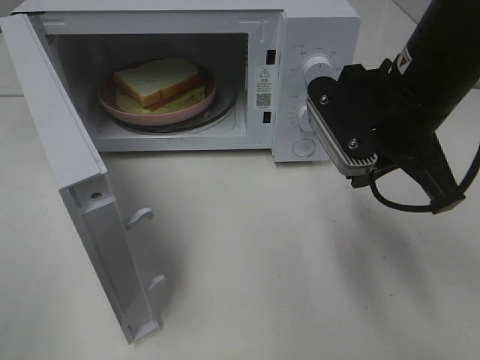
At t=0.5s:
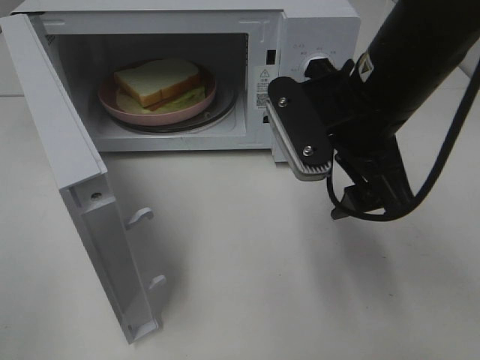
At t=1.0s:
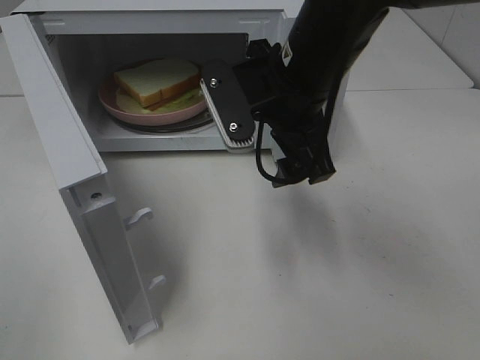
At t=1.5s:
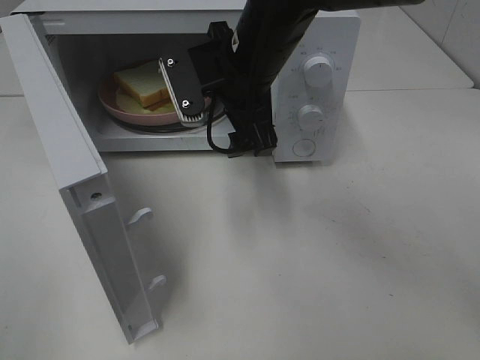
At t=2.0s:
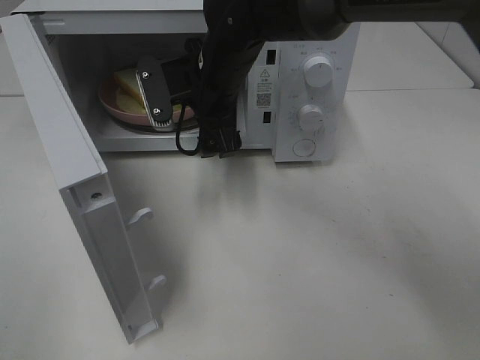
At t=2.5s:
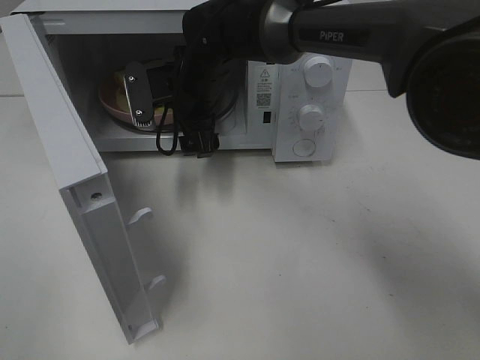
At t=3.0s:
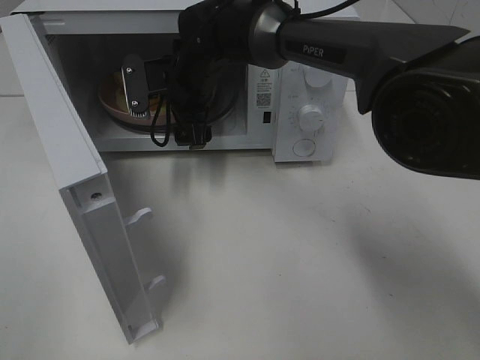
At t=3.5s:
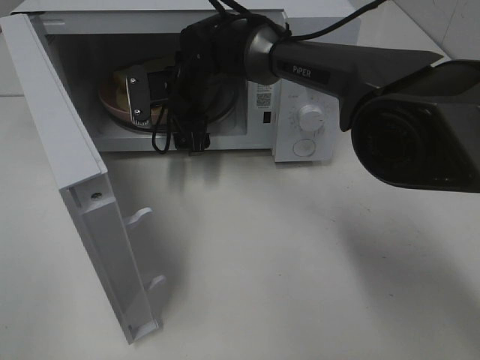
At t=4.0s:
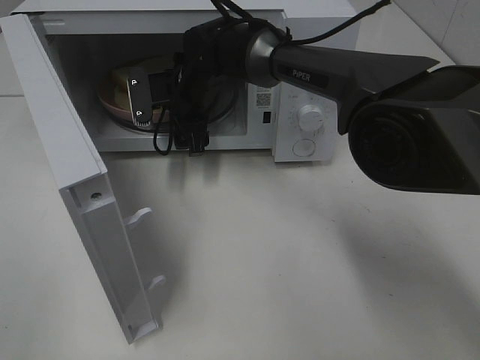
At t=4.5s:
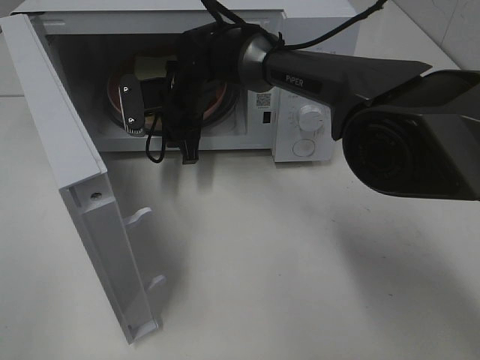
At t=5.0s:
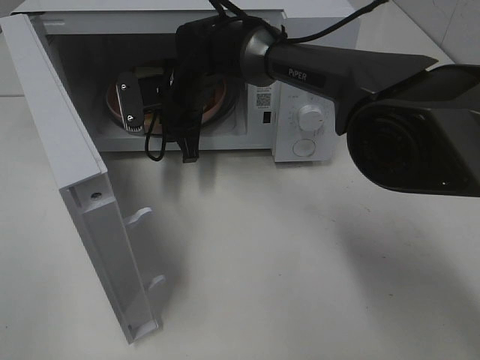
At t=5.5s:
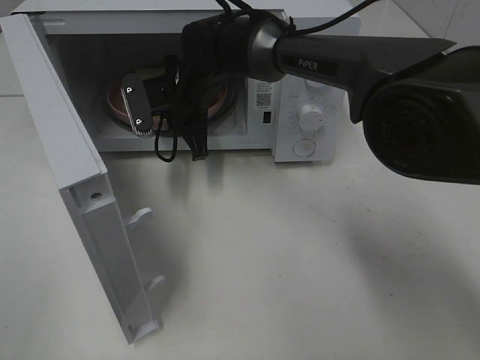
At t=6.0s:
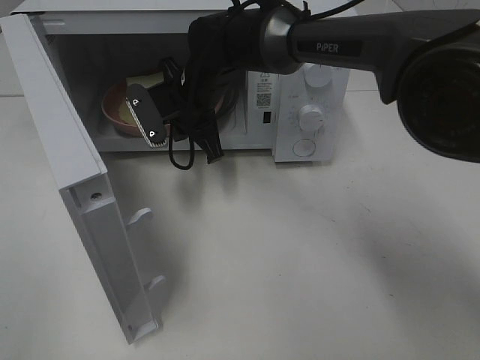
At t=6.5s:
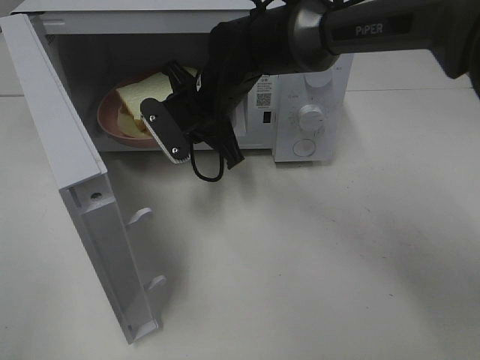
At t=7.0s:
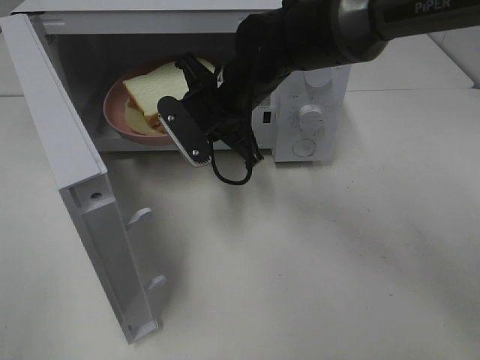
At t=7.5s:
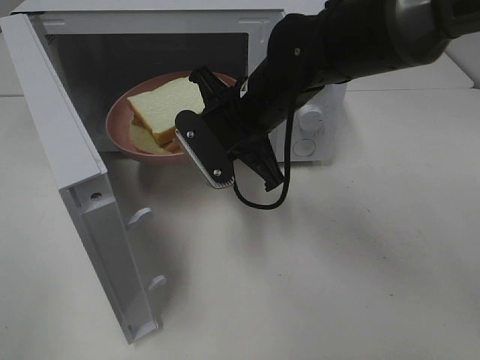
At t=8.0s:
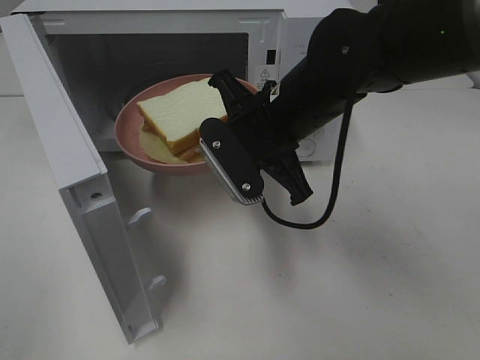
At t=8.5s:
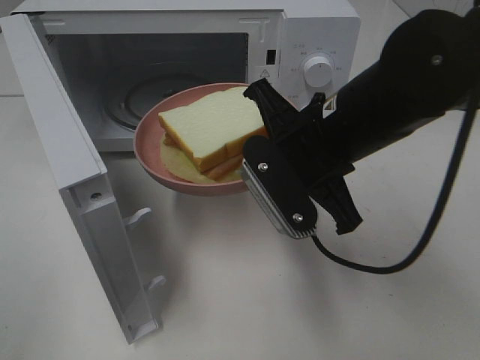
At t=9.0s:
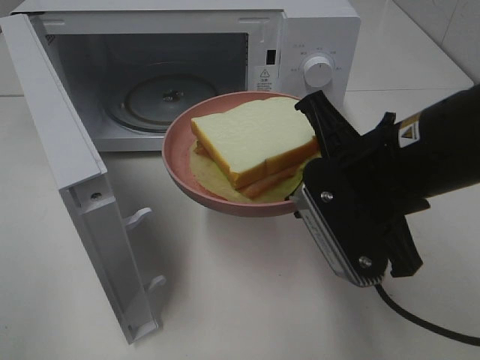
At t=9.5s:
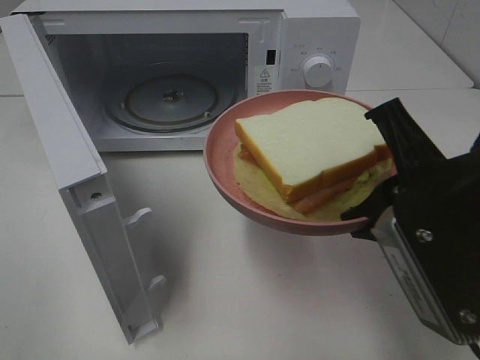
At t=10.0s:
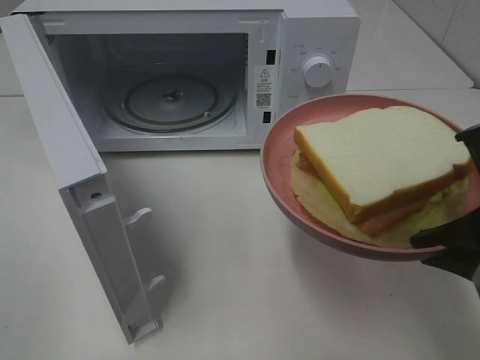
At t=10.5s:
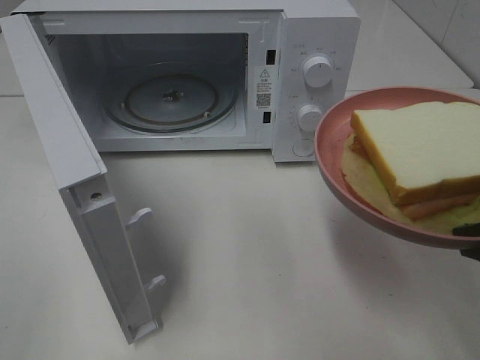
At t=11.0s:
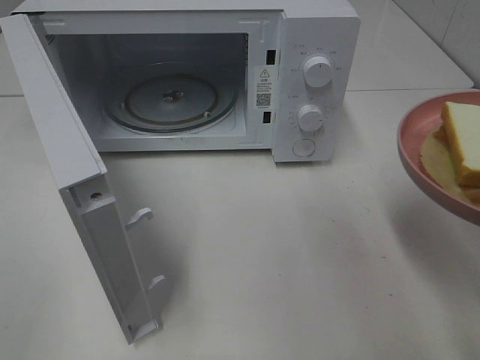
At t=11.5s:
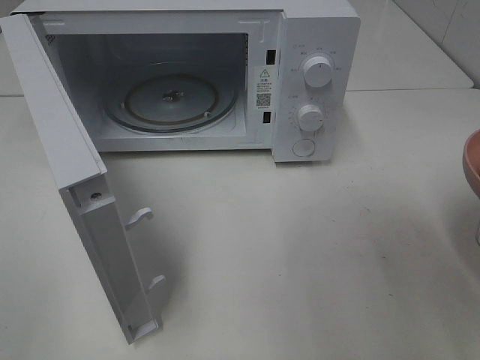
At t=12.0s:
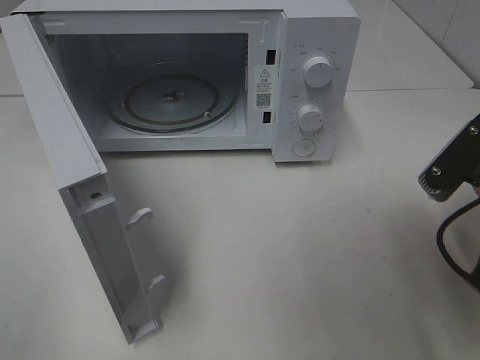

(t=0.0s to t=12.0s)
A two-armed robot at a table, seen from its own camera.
Task of the whole recording: Heat Sandwich.
Step, t=0.0s - t=5.0s: Right hand: grab the plate with the sandwich.
t=0.0s - t=2.0s: The right gripper goes roughly 20 cm to the left and forward, and opens its fingers.
t=2.0s - t=4.0s: The right gripper moves forward and downward, roughly 10 cm.
t=4.0s - t=6.0s: The right gripper closes up.
t=6.0s - t=8.0s: The right gripper moves backward and to the right, approximately 15 cm.
t=8.0s - t=10.0s: The right gripper moves backward and to the right, roughly 25 cm.
t=10.0s - t=12.0s: The right gripper shifts approximately 5 cm forward.

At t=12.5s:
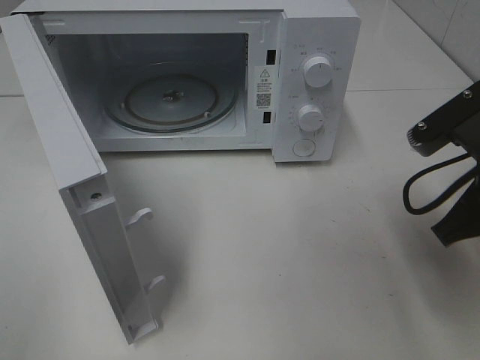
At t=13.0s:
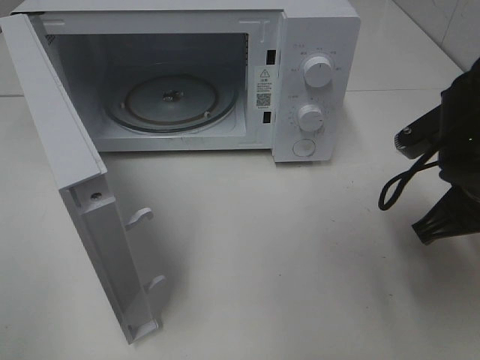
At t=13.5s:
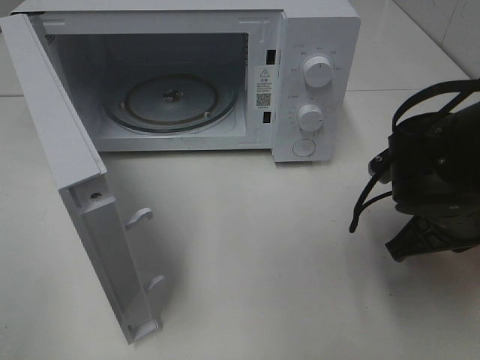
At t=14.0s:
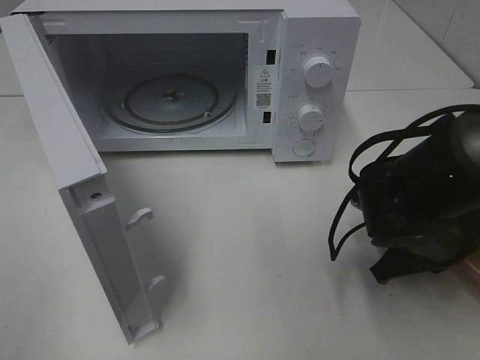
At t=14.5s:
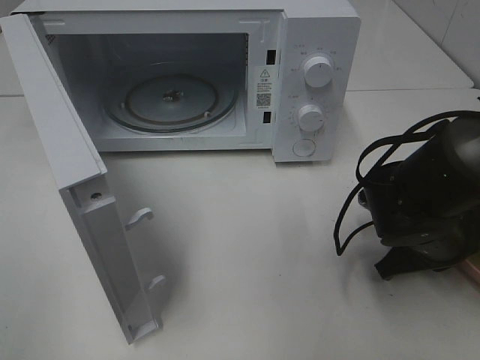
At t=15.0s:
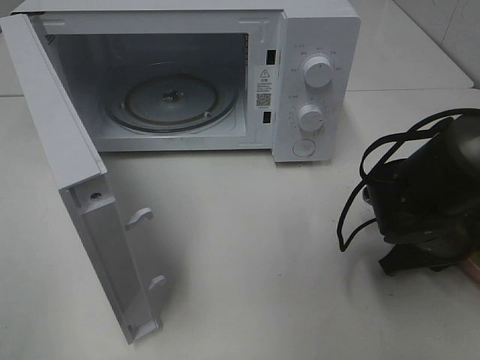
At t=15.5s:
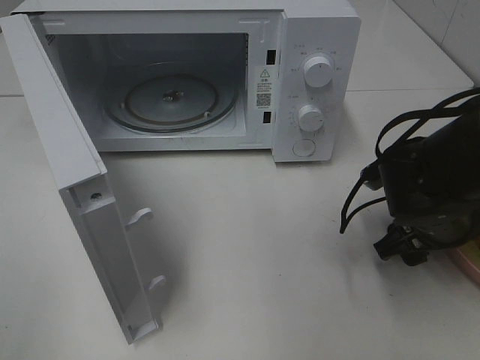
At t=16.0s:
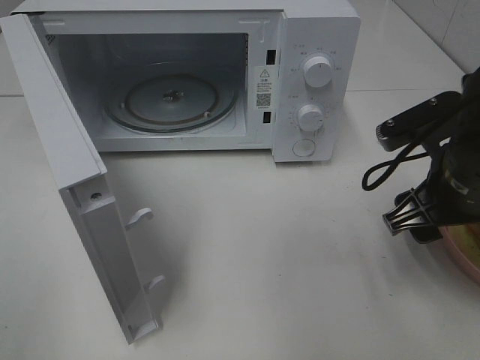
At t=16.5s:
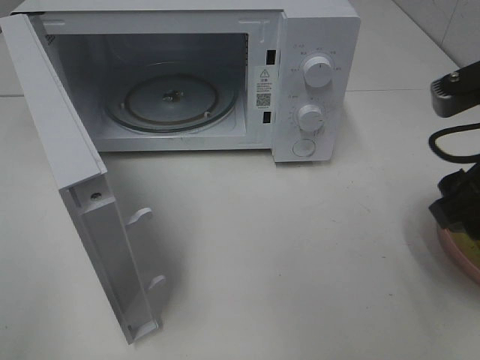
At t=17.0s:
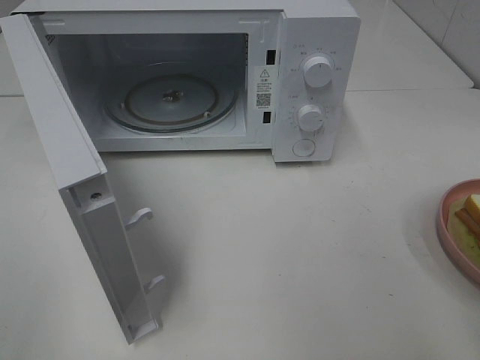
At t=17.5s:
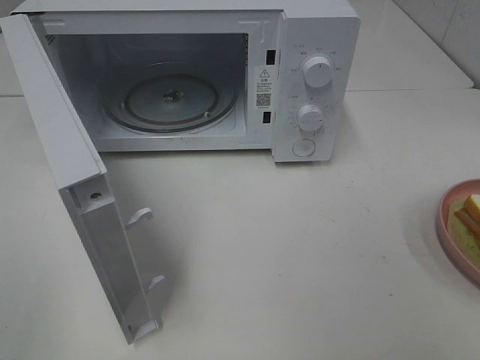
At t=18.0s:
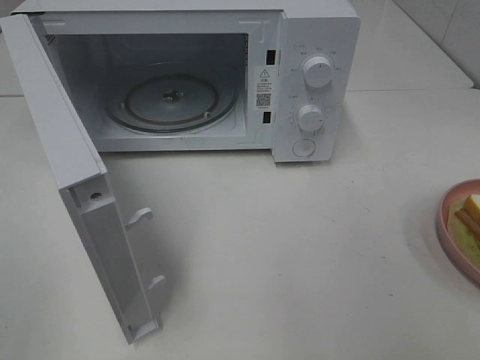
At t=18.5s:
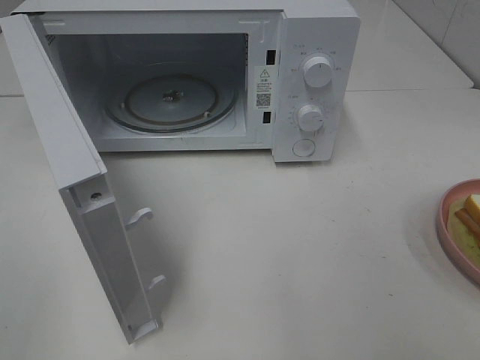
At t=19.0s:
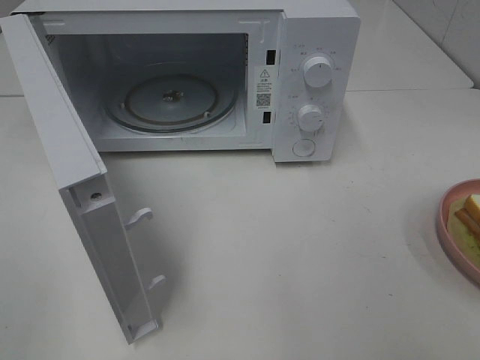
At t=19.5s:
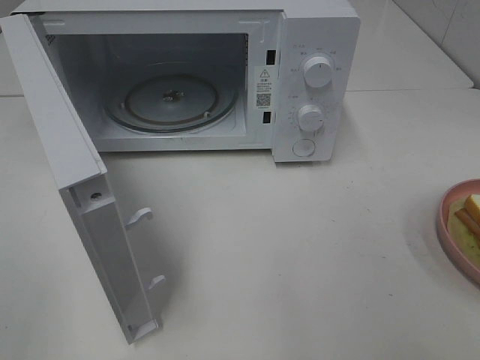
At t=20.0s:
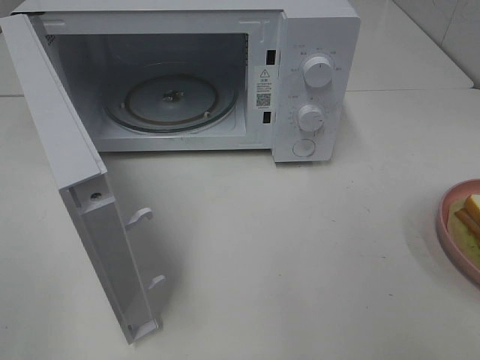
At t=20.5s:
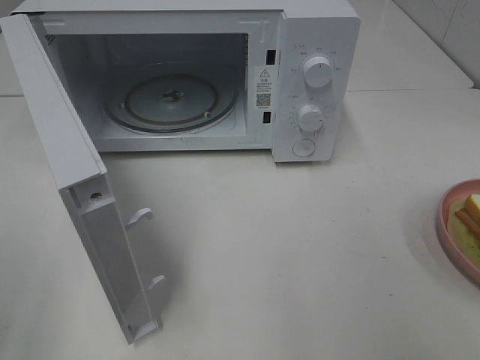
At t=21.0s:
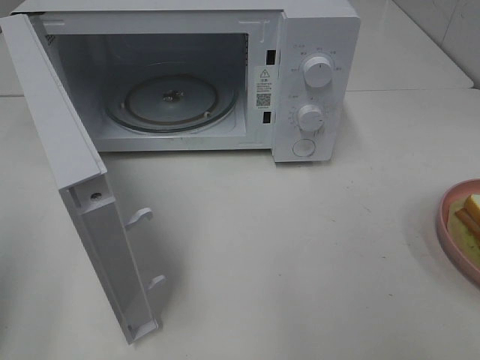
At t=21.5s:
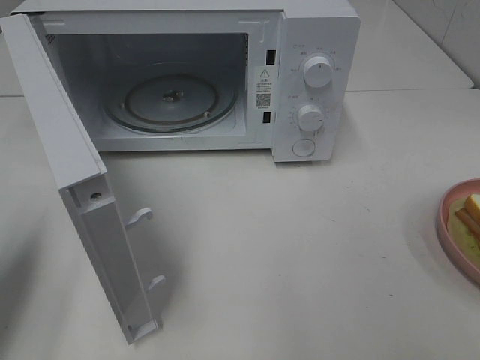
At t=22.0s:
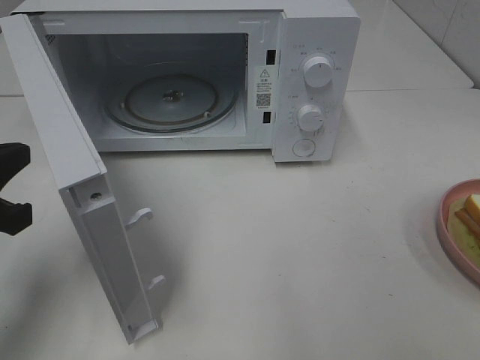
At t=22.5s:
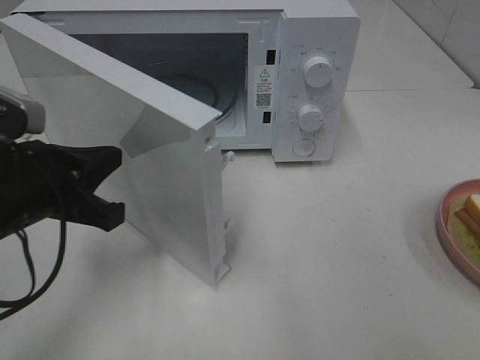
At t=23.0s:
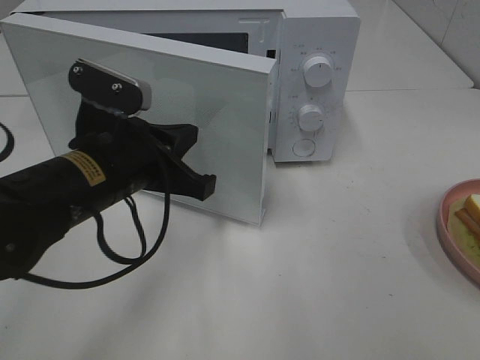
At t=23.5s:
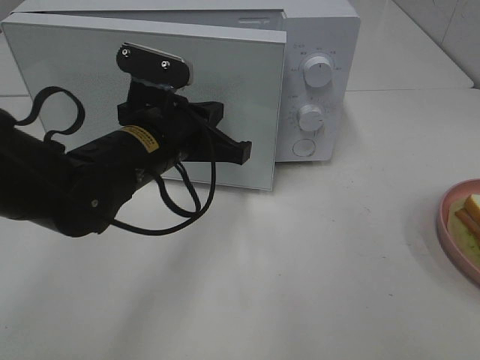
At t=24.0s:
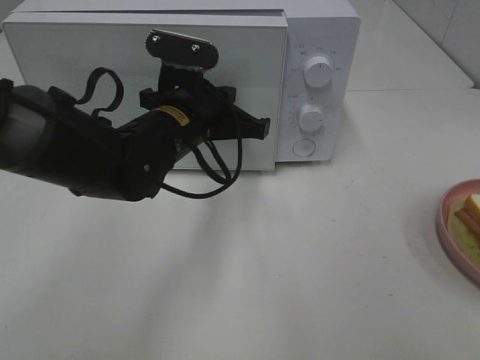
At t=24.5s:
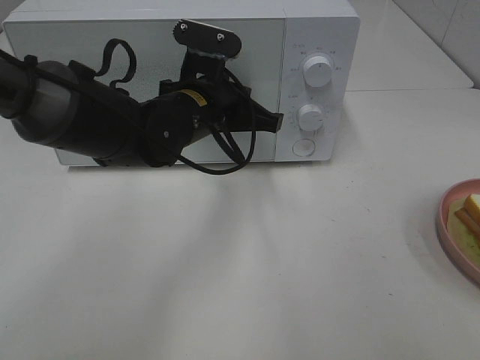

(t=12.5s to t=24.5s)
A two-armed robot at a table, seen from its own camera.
Task of the whole recording: Heat Sandwich.
Step, t=12.5s - t=15.5s: Right hand: place the plate on the table.
t=12.5s - t=14.5s: The right gripper heads downward, covering about 15 cm.
t=14.5s - t=16.5s: The right gripper heads upward, covering roughly 20 cm, and opens.
t=16.5s - t=18.5s: The right gripper shifts roughly 20 cm backward and to the right.
t=20.5s - t=22.5s: The left gripper heads forward, to the right and downward, covering some 25 cm, and closes its fingers.
t=22.5s - t=24.5s: The left gripper shifts some 20 cm to the right and forward.

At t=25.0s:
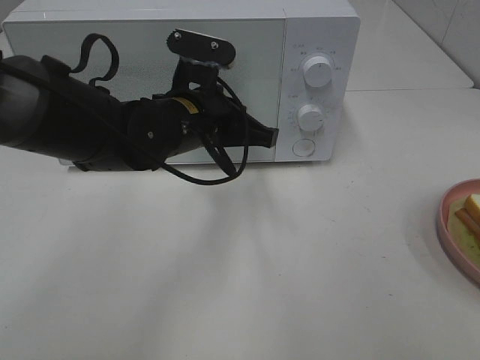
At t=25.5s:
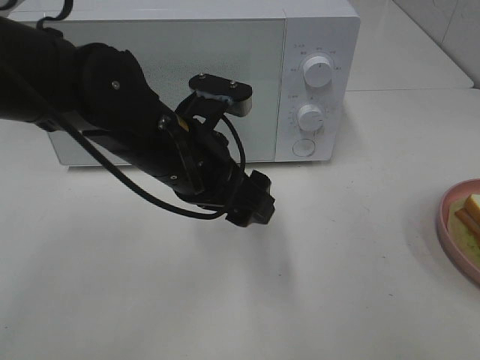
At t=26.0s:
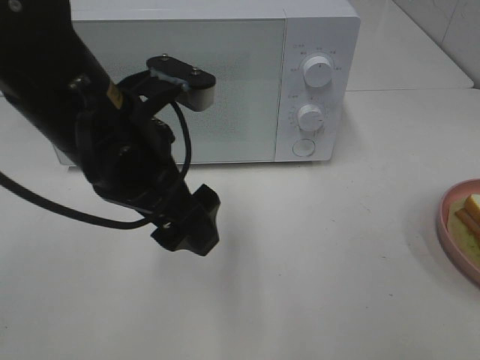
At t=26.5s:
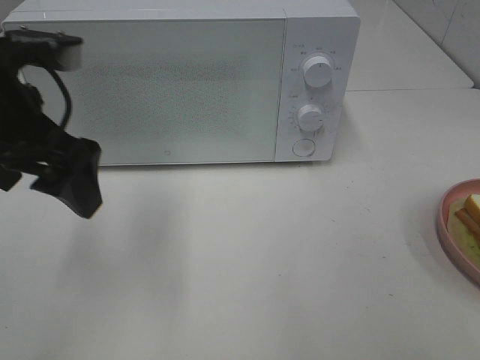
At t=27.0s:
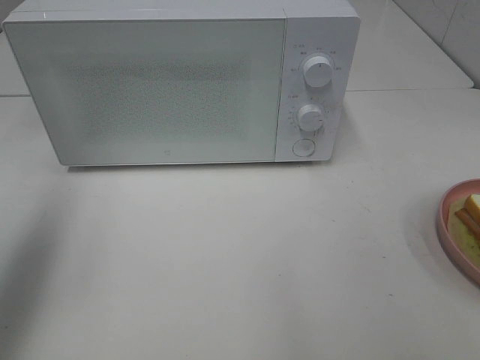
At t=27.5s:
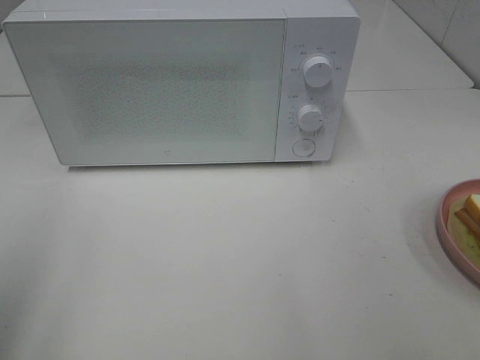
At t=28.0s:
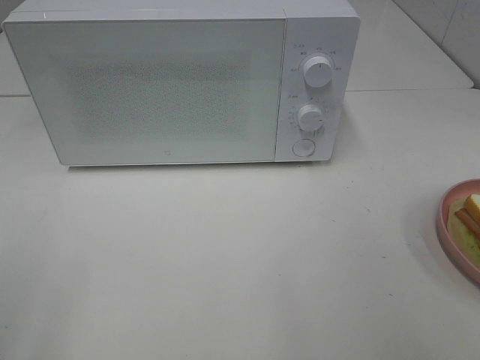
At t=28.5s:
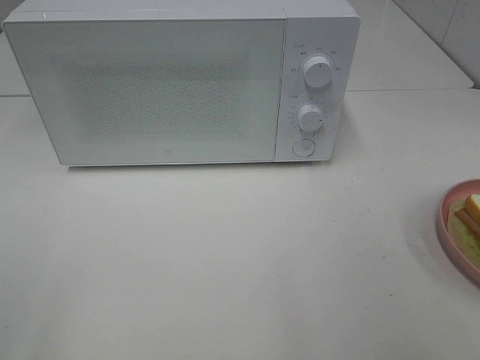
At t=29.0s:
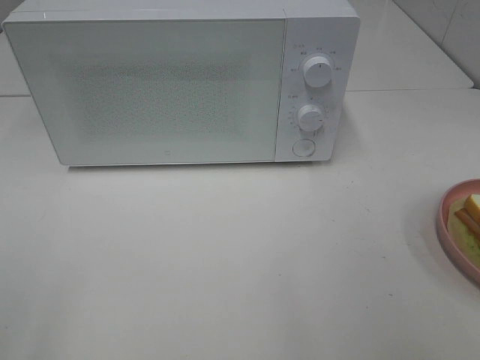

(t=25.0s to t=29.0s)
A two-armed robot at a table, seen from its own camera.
Task of the whole recording: Heat Sandwich.
t=25.0s - t=27.0s: The left gripper heads to the left and upward, covering about 30 cm, and opens its fingers.
t=27.0s - t=29.0s: The left gripper goes some 20 cm backward.
